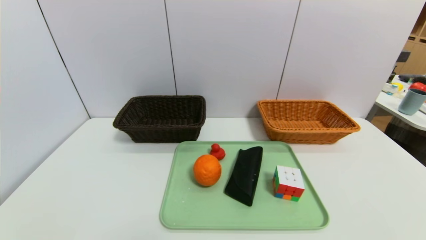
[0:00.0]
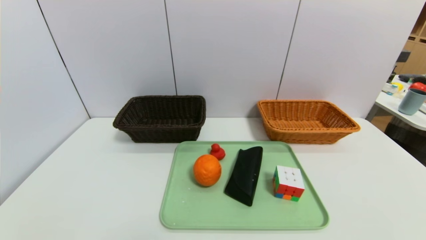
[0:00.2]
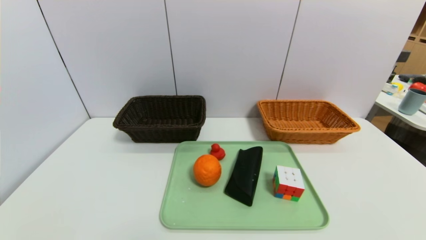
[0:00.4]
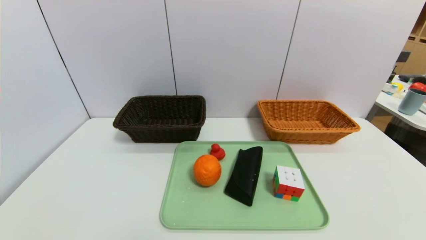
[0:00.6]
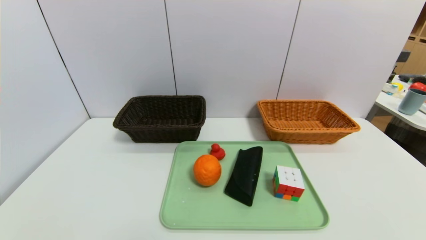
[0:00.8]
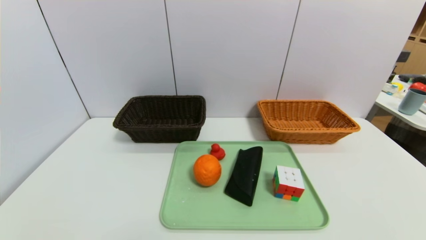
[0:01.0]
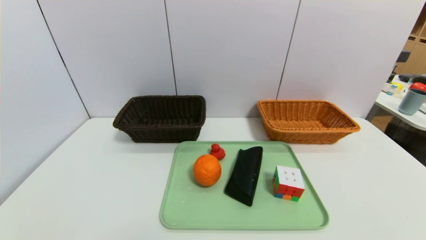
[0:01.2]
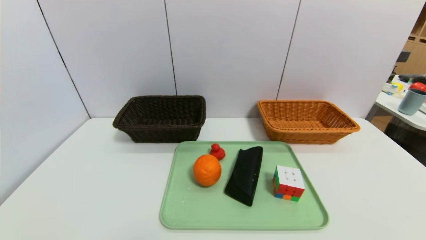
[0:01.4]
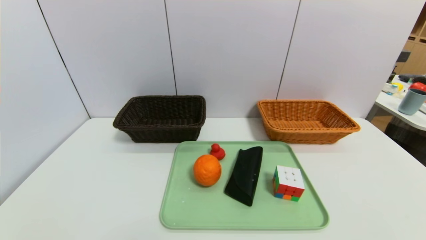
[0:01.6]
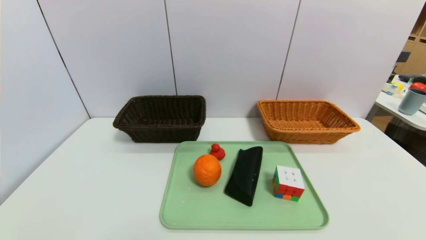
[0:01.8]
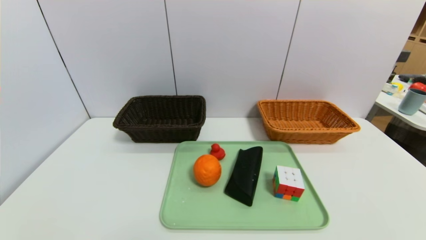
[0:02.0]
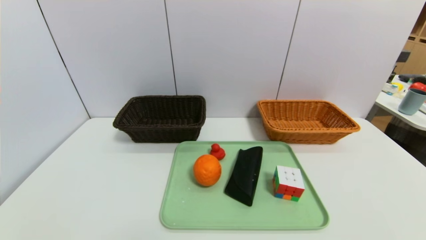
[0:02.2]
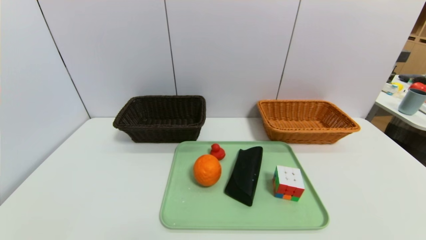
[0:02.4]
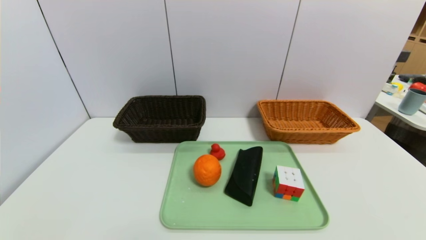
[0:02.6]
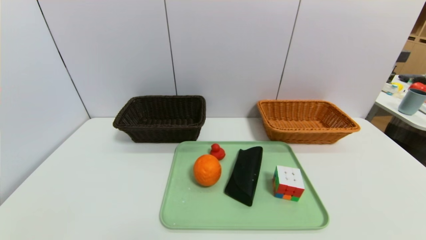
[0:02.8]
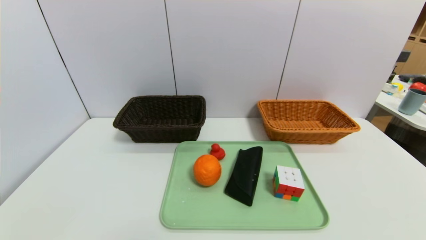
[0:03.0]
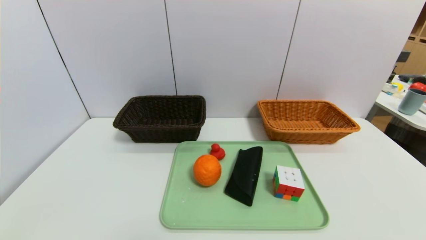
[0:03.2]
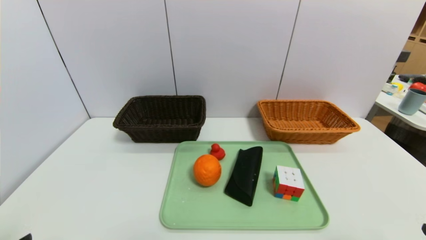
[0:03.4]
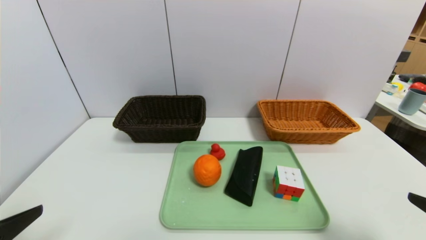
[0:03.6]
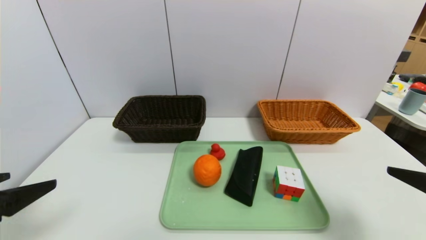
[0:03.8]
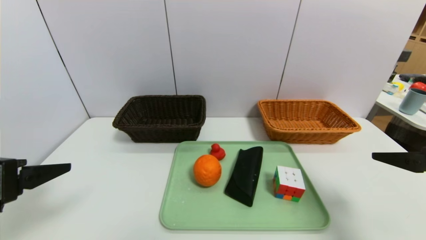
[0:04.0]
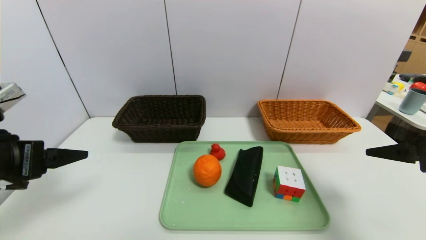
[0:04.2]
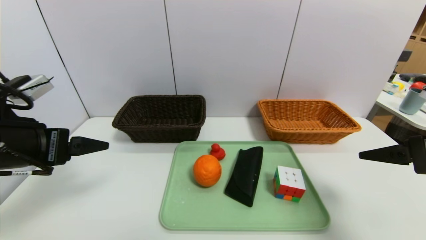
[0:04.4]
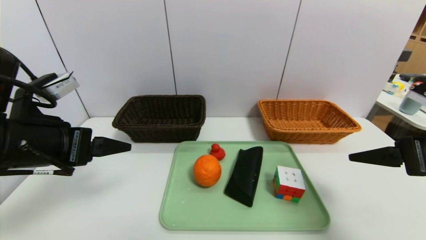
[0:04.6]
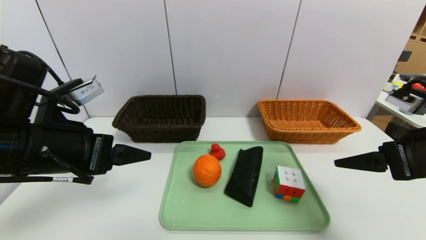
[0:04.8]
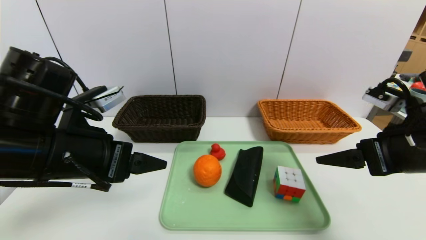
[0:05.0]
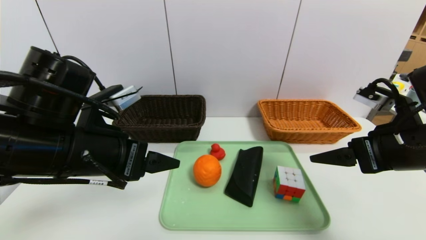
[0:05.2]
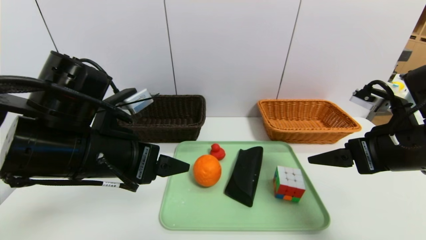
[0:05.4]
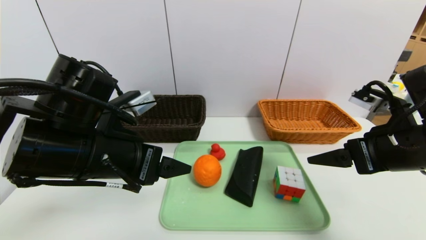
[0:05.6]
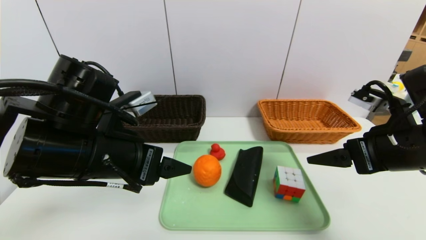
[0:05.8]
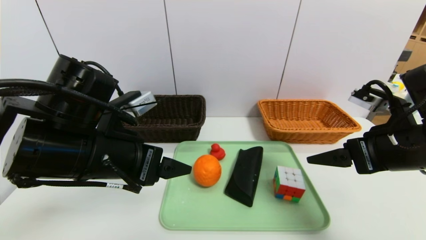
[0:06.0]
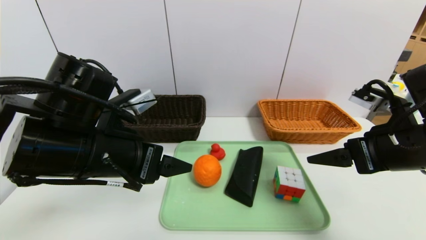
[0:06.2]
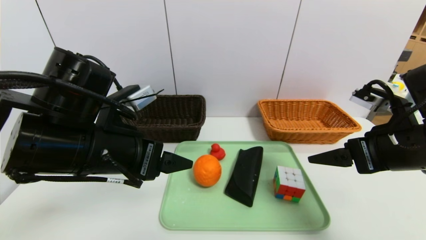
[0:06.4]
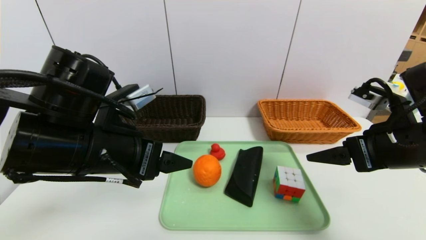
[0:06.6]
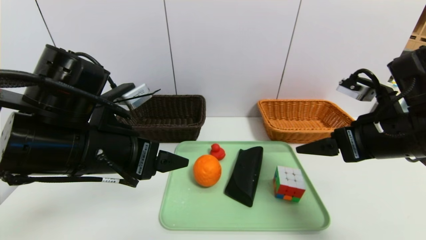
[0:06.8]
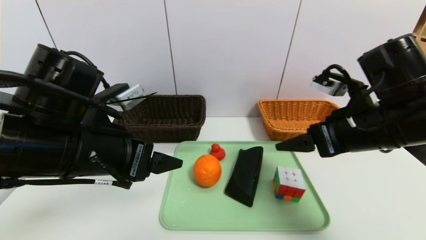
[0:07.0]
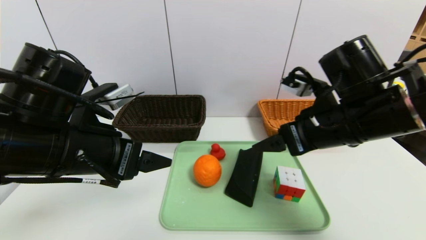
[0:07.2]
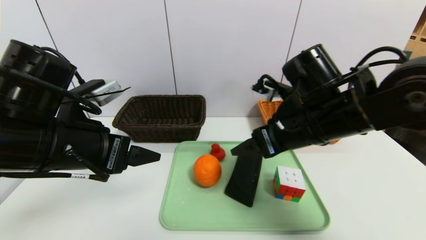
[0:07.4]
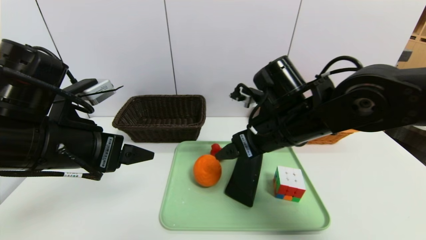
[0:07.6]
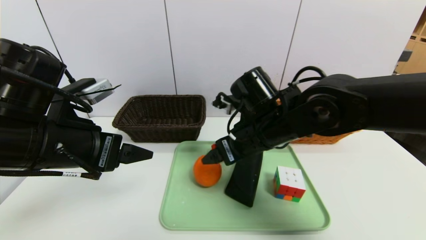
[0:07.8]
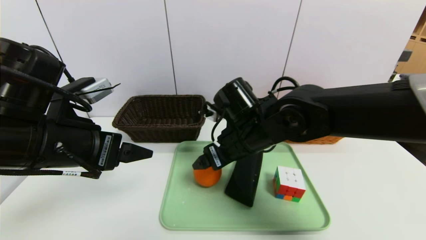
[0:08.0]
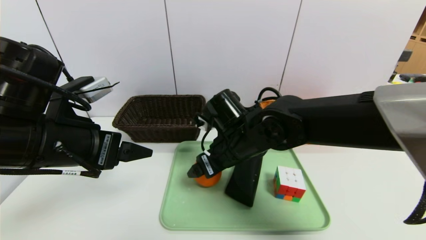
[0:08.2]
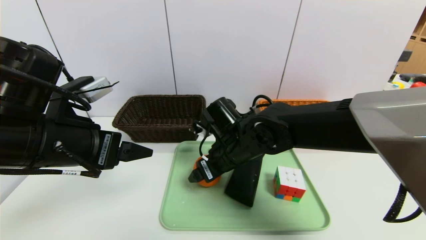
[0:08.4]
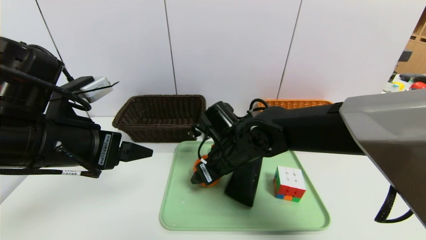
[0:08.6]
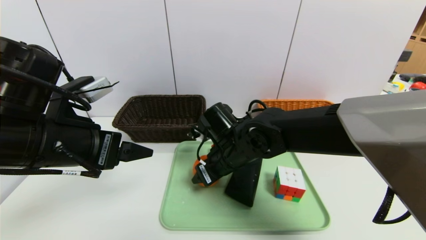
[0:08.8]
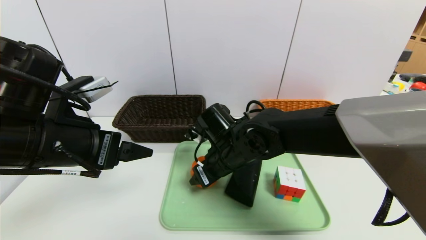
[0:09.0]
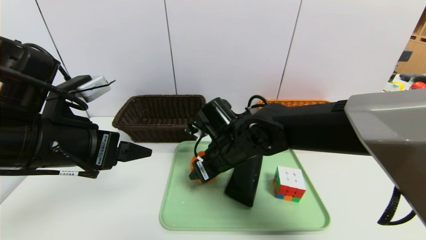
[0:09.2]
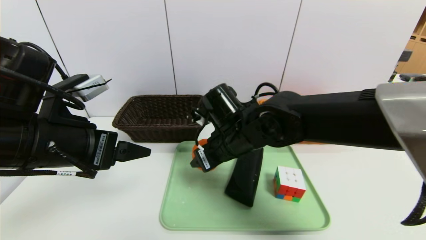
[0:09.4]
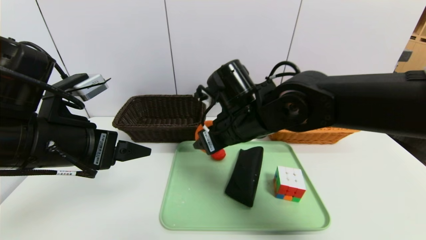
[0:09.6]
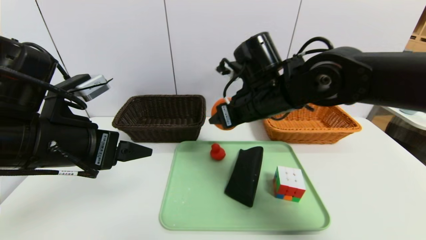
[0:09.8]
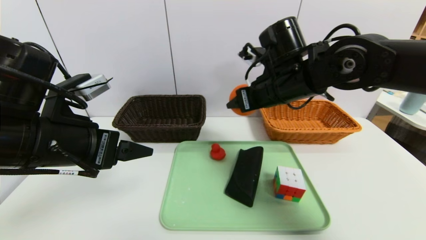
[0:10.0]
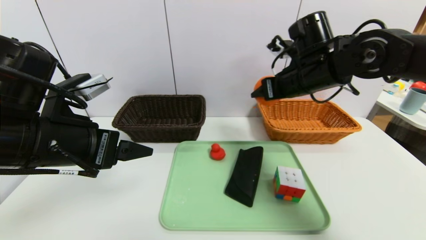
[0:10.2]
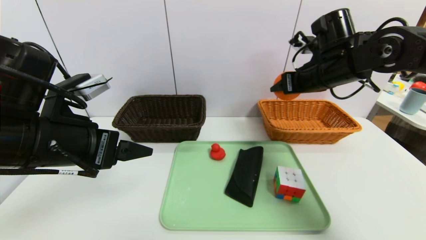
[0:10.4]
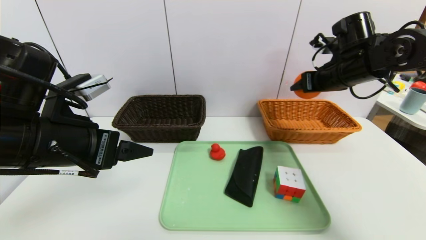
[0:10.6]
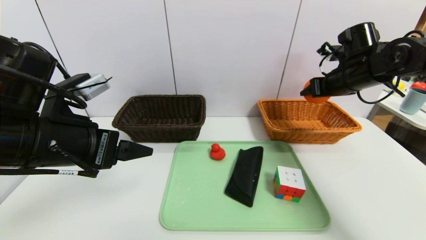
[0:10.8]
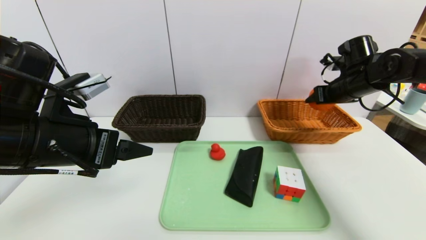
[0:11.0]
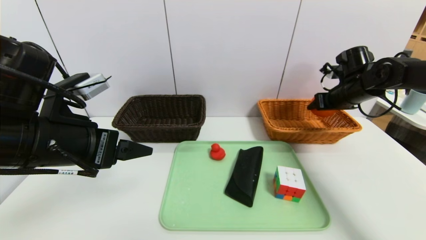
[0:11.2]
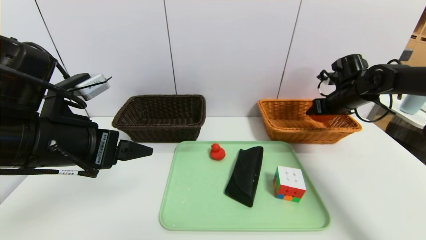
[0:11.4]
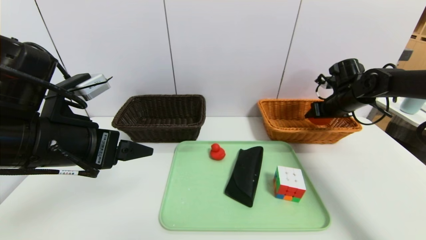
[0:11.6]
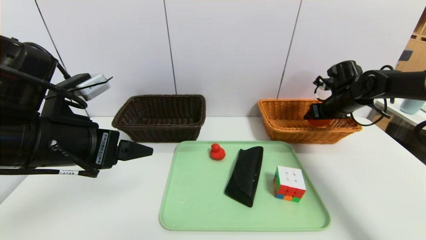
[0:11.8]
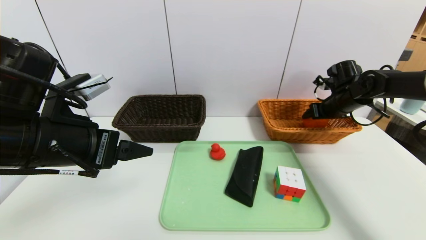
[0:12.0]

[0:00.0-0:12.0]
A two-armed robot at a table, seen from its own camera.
Task of the whole recording: place the food in the right basket with the right gripper, and place the non food items in the left basket with the left gripper.
0:00.0 to 0:01.6: The two grippers keep their place.
0:03.0 to 0:04.4: Both grippers travel together forward and upward, about 25 cm.
0:04.4 to 0:06.0: The left gripper heads to the right, covering roughly 10 cm. The right gripper heads to the left, covering roughly 5 cm.
0:06.0 to 0:07.6: The right gripper goes approximately 20 cm to the left and forward, while the left gripper shifts by roughly 5 cm.
0:07.6 to 0:09.0: The right gripper moves to the left and downward, about 10 cm, and closes up.
0:09.0 to 0:10.4: The right gripper moves to the right and upward, some 25 cm.
0:10.4 to 0:12.0: The right gripper shifts roughly 15 cm to the right, downward and forward, and opens its fingers.

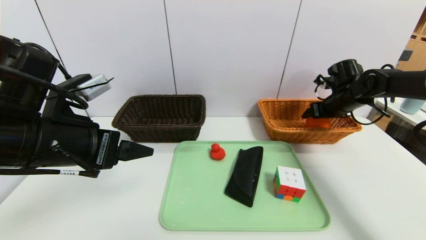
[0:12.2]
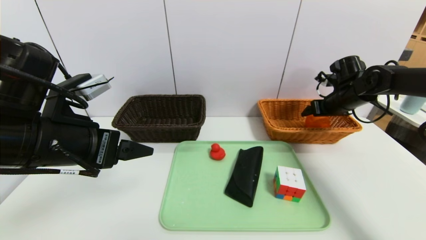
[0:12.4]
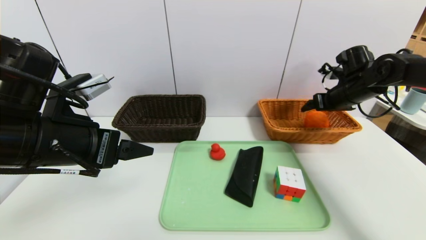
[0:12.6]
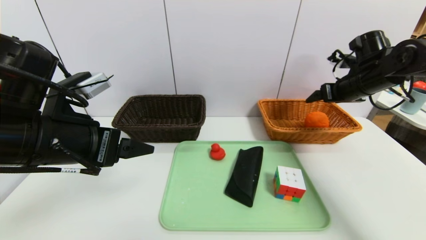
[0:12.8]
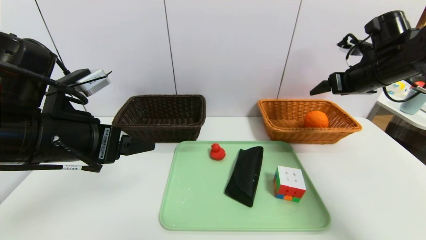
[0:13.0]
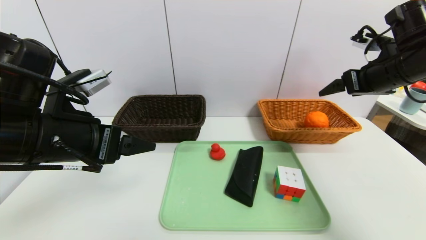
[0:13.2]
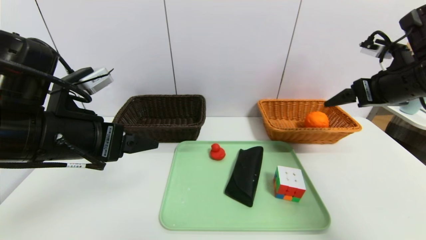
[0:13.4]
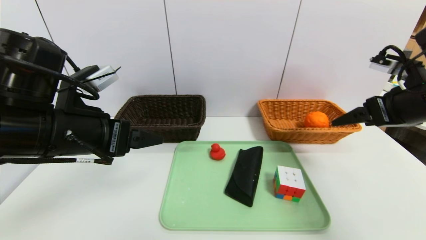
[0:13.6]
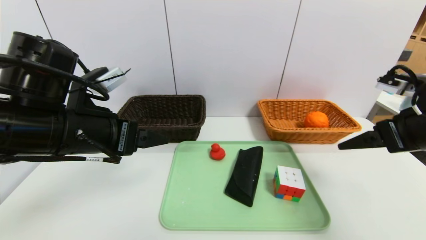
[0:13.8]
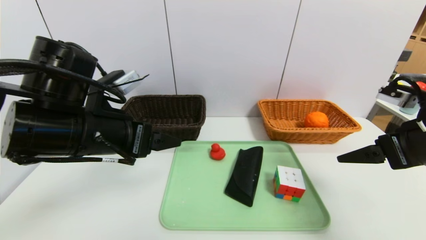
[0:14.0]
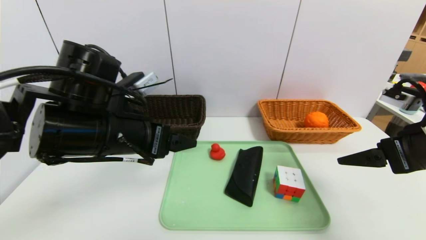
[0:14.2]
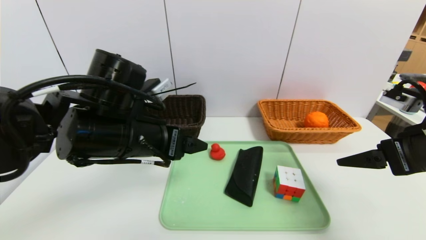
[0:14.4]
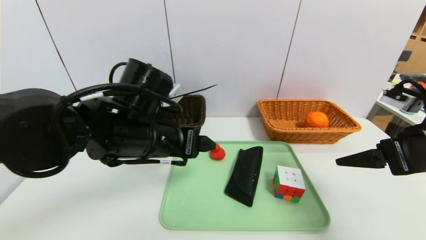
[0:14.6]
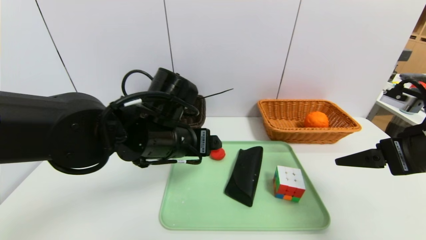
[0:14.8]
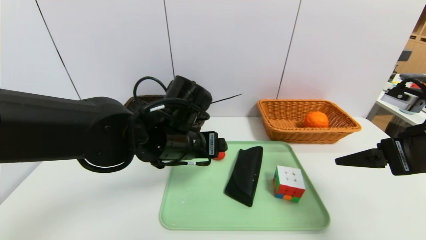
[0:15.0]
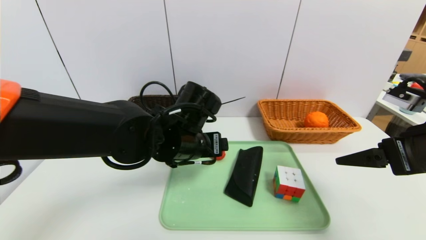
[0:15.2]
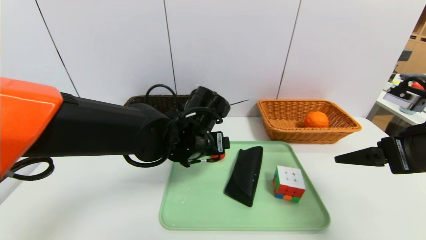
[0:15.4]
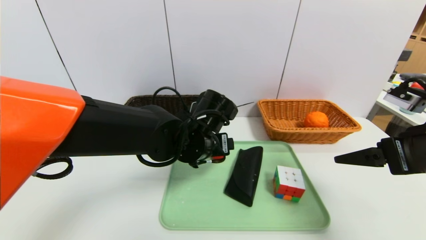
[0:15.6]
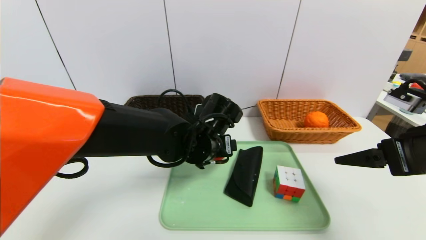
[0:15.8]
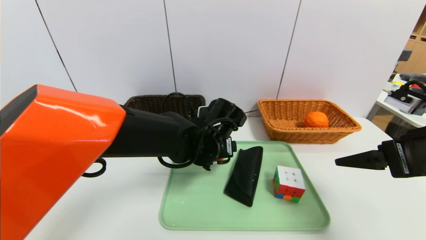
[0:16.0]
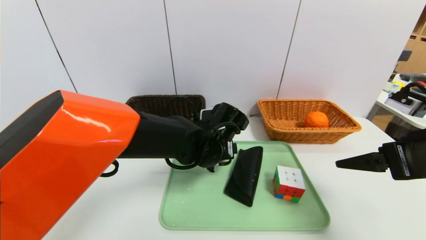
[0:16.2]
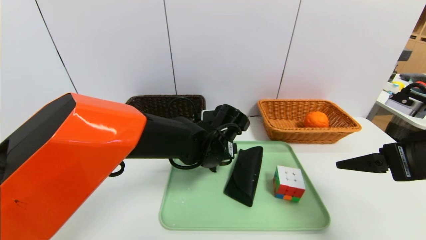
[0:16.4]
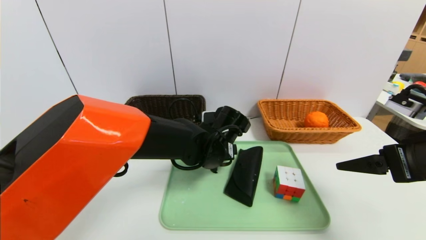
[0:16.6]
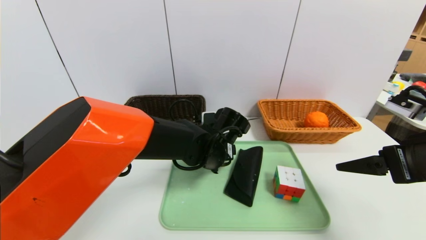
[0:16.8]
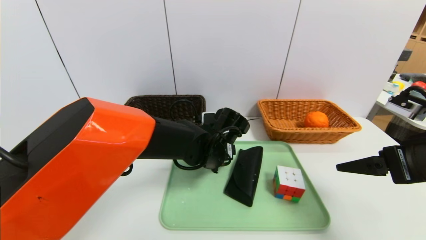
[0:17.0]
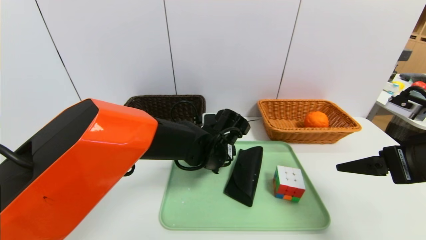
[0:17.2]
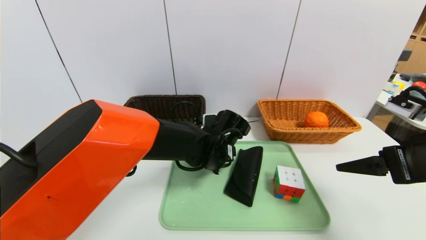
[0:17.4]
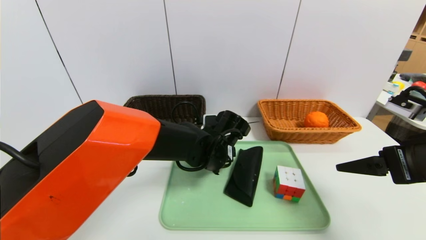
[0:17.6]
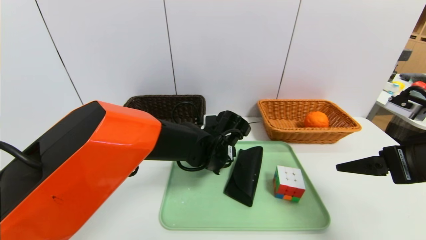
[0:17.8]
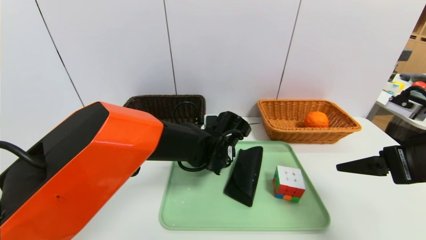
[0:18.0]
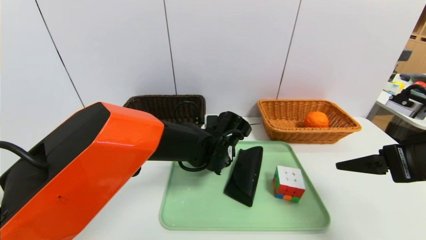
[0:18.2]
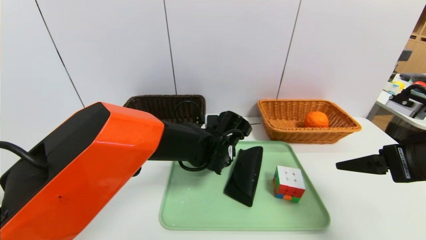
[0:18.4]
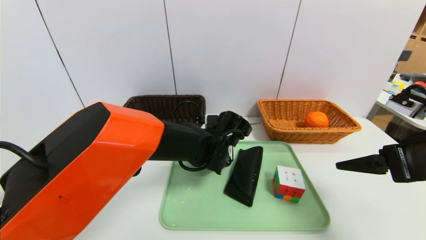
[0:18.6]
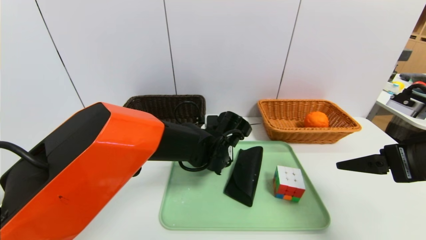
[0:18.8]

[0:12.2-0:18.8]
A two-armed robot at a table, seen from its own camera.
Task of the whole recording: place the food in the right basket with the right gripper, and place the non food items in the left basket with the left gripper.
0:12.2 to 0:13.8: The right gripper travels backward by roughly 25 cm.
0:13.8 to 0:15.4: The left gripper goes approximately 20 cm to the right, downward and forward.
0:15.4 to 0:17.2: The left gripper shifts roughly 5 cm downward.
0:17.2 to 0:18.8: The left gripper closes its fingers.
